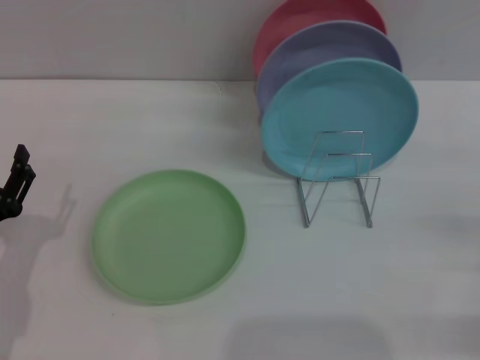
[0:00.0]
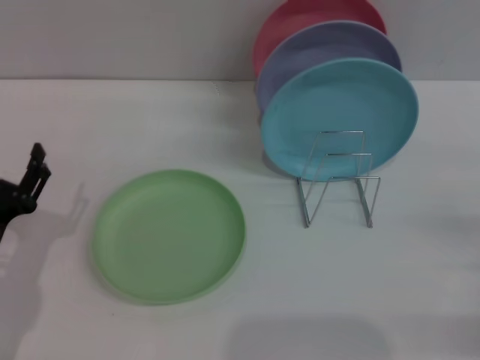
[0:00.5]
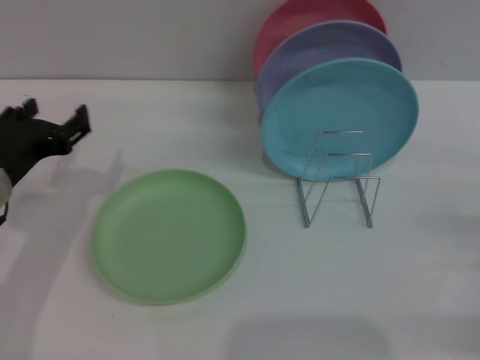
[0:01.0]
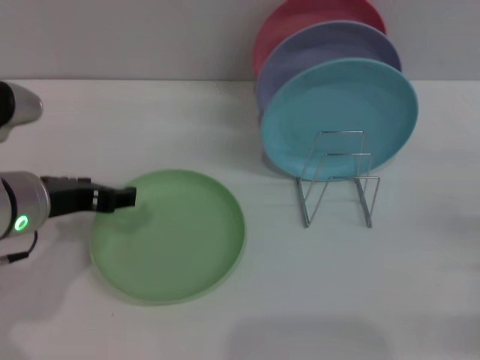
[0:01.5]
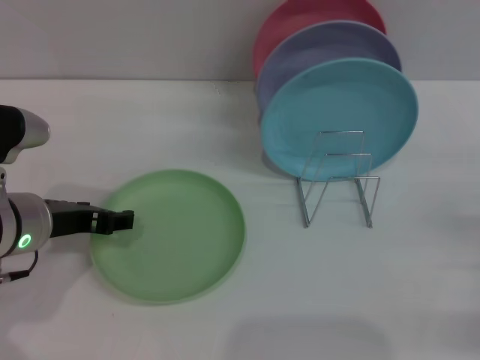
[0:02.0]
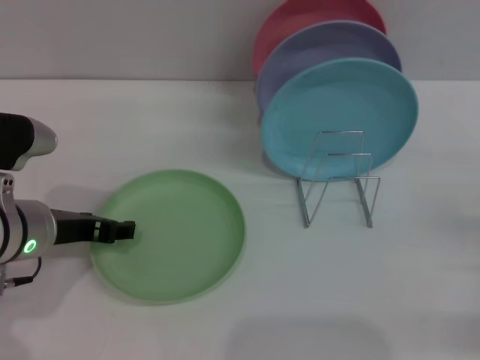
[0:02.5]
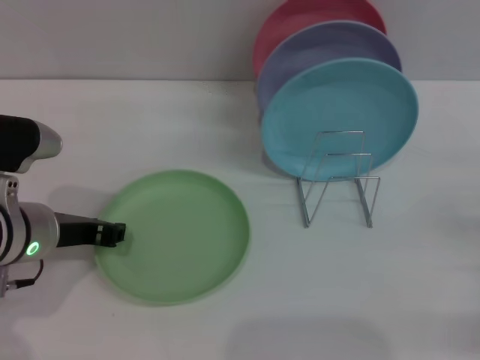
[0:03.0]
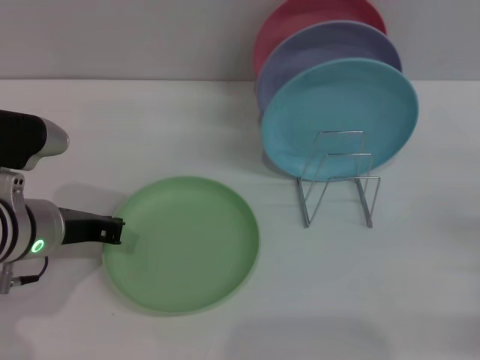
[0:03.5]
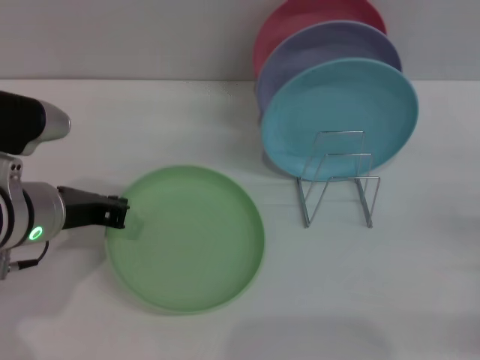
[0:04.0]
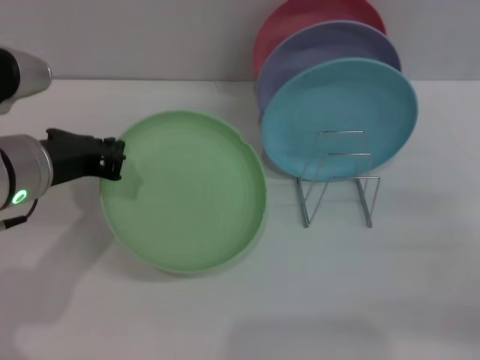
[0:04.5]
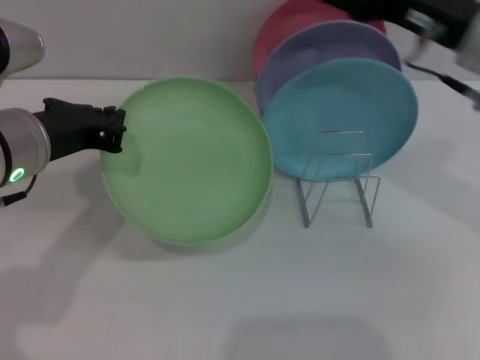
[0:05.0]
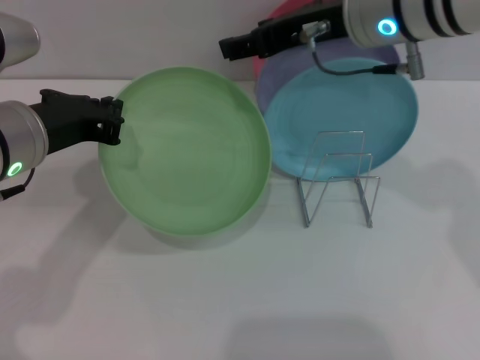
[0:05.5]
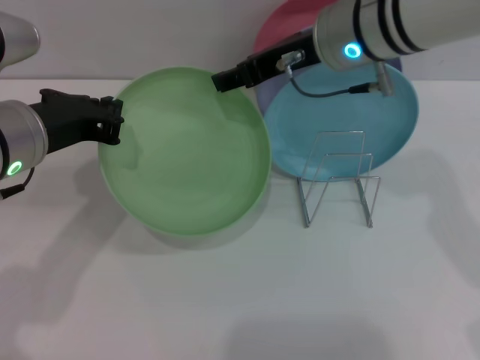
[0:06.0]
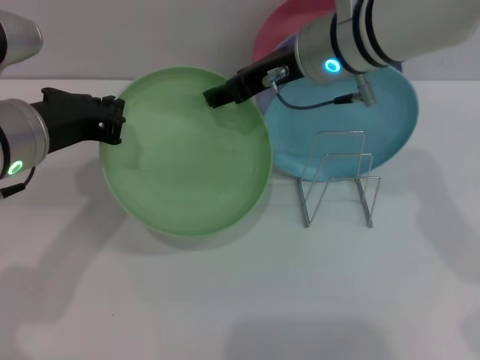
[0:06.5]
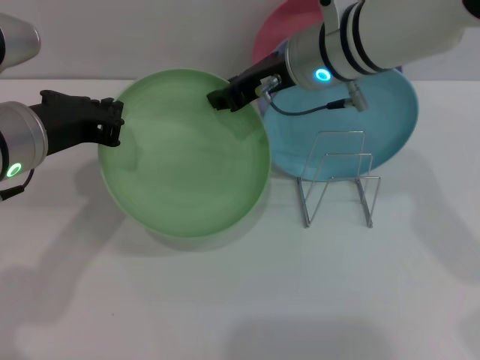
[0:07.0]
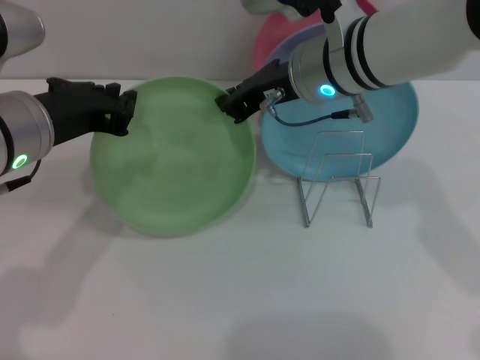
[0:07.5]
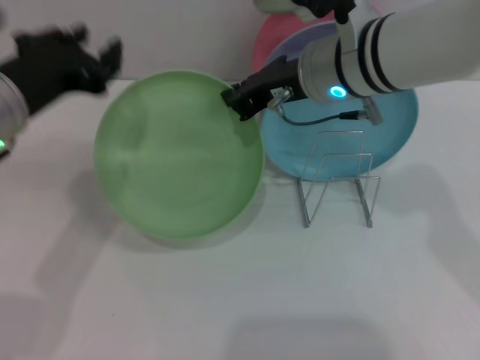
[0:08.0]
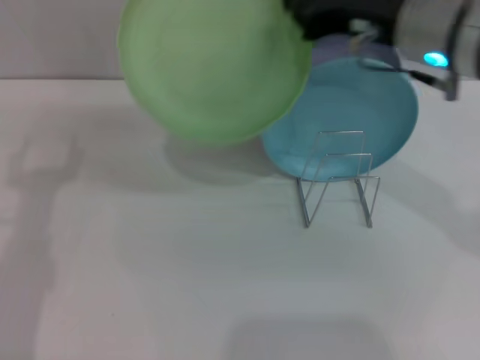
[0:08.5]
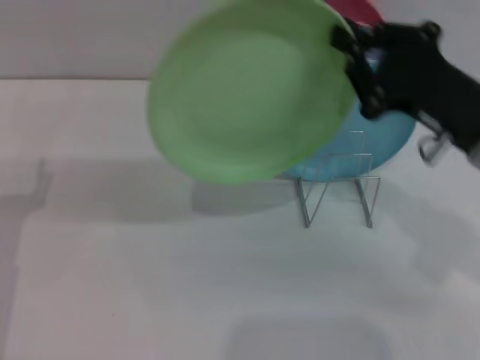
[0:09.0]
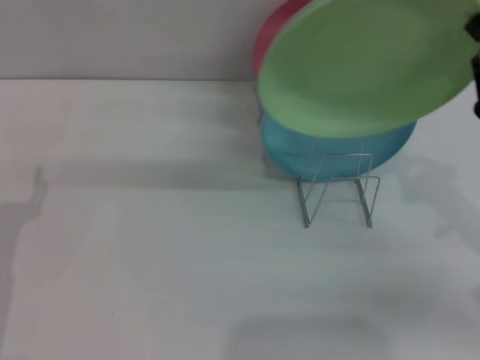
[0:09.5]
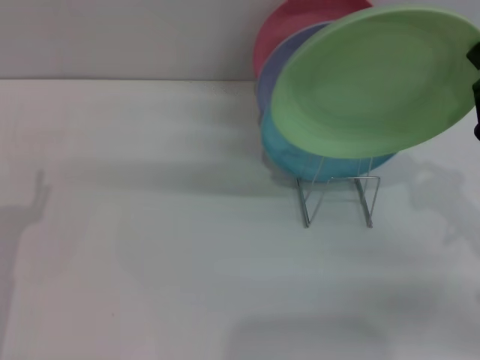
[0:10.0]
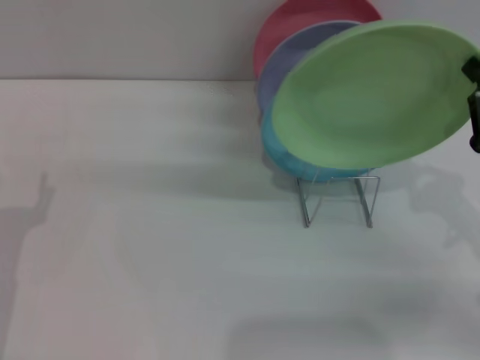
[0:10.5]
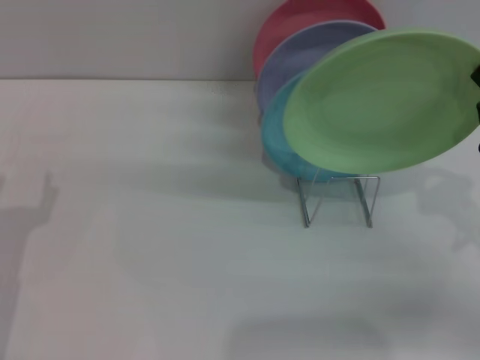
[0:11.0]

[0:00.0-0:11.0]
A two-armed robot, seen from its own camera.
Task of the whole recording: Grip the plate with one hand, pass it to the other, then set it on the shelf.
Step, 0:00.0 to 0:04.5: Pick up the plate with the left gripper.
Step, 0:05.0 to 0:08.0: Pass the plate from the left gripper to the right gripper.
0:00.0 to 0:02.0: The left gripper shifts approximately 15 cm upward, forward and to the right.
0:02.0 to 0:03.5: The left gripper closes up.
0:03.5 to 0:05.5: The left gripper heads upward, covering about 10 cm. The right gripper is displaced to the left, upward and forward by approximately 40 cm.
0:05.5 to 0:07.5: The right gripper heads downward, covering about 5 cm, and closes its fingers.
0:07.5 to 0:09.0: The right gripper heads to the right and backward, covering roughly 15 cm. Meanwhile the left gripper is displaced downward, to the left and backward by approximately 15 cm, and opens its fingers.
0:09.0 to 0:11.0: The right gripper moves to the right and downward, approximately 10 cm.

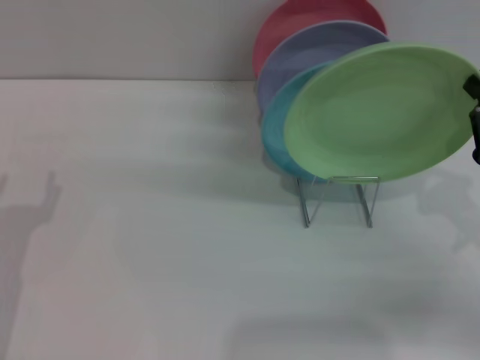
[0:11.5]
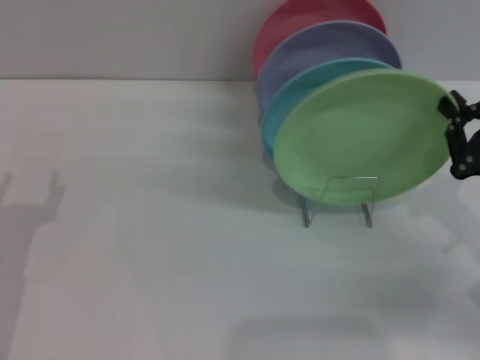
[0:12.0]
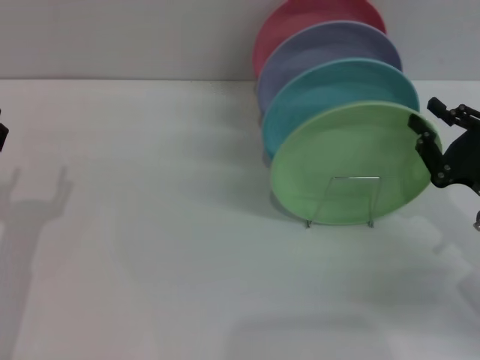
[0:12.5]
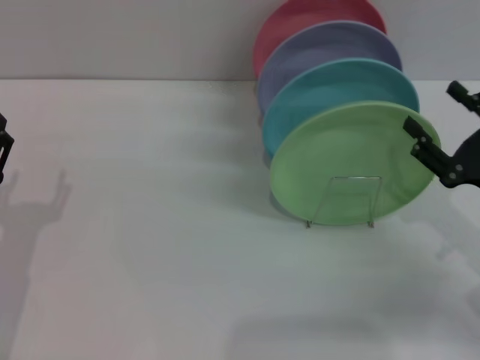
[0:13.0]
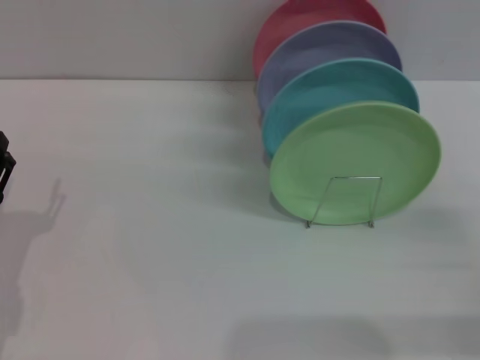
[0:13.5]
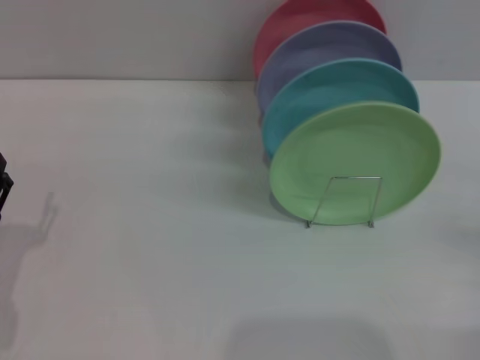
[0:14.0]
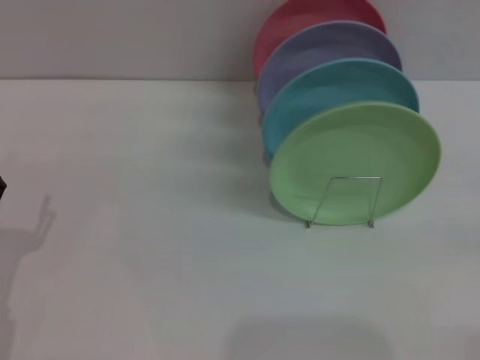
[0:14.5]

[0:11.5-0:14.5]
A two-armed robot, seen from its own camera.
Task of the whole recording: Grip the plate with one hand, pass it to the other, then set it on the shelf.
0:11.5 to 0:13.0: The right gripper opens up.
0:13.0 to 0:14.5: The right gripper goes about 10 cm to the right and backward.

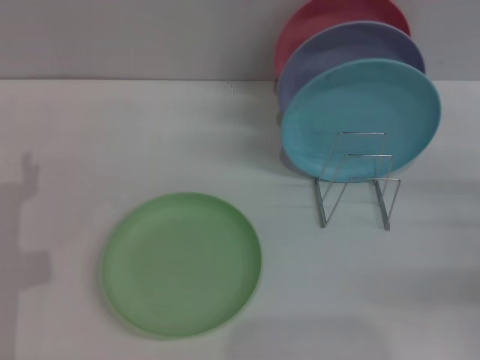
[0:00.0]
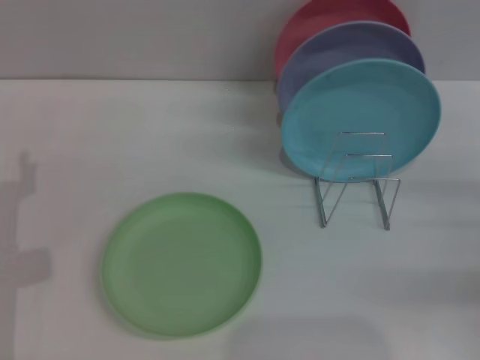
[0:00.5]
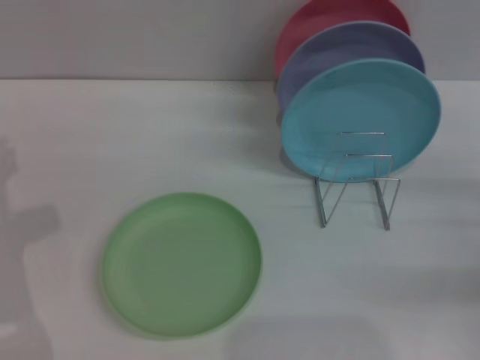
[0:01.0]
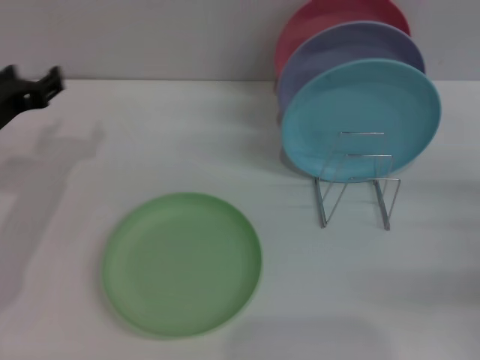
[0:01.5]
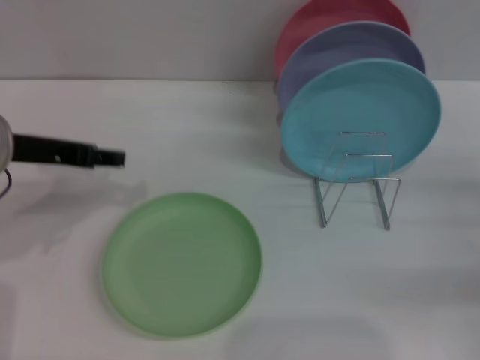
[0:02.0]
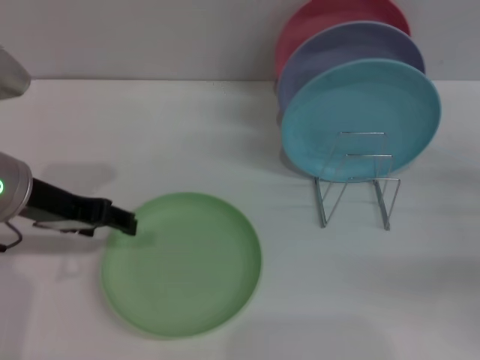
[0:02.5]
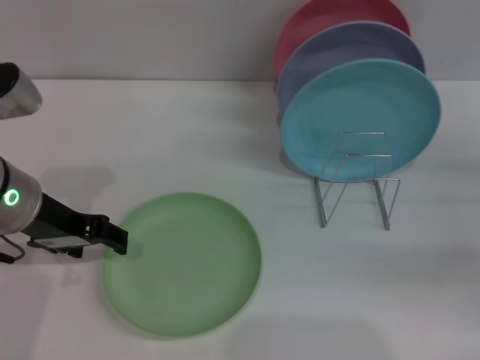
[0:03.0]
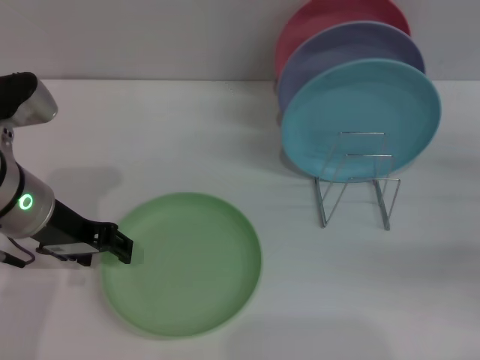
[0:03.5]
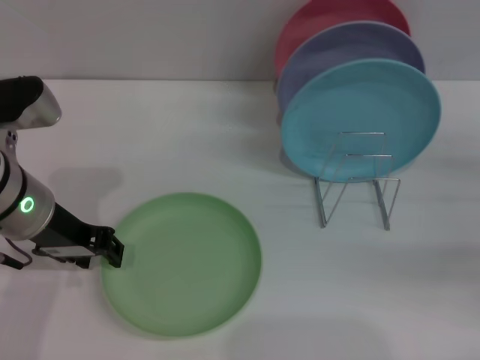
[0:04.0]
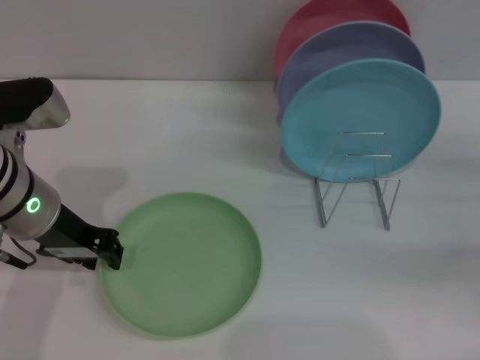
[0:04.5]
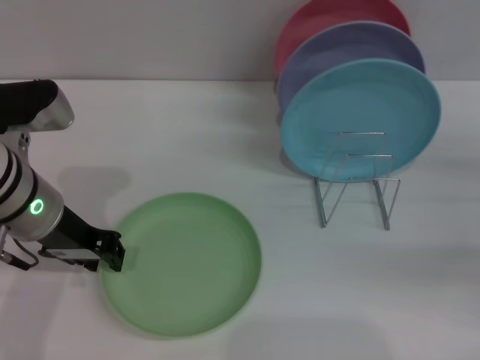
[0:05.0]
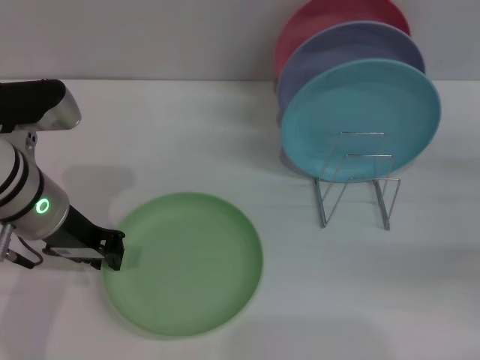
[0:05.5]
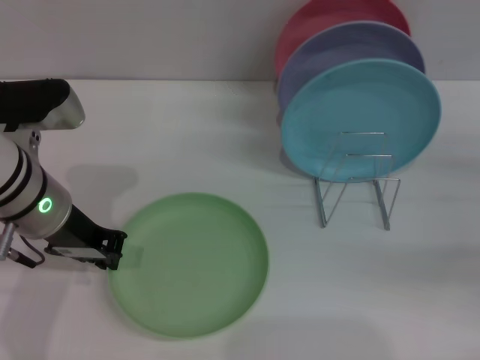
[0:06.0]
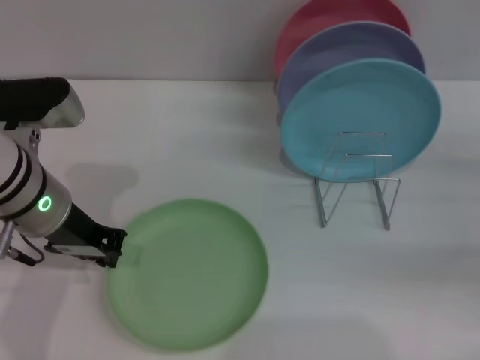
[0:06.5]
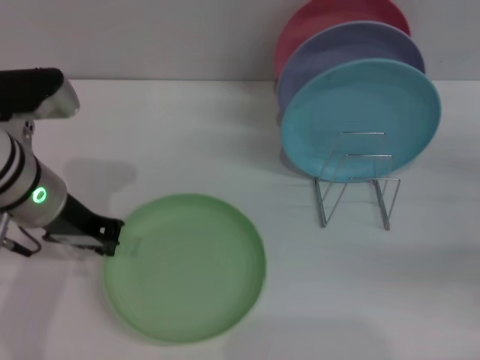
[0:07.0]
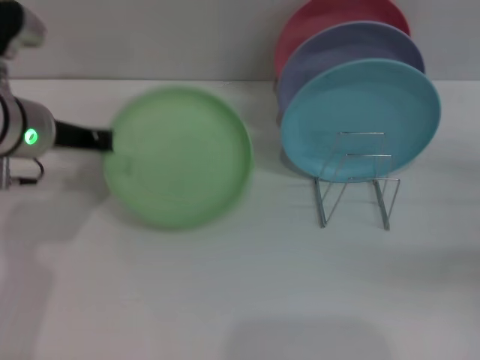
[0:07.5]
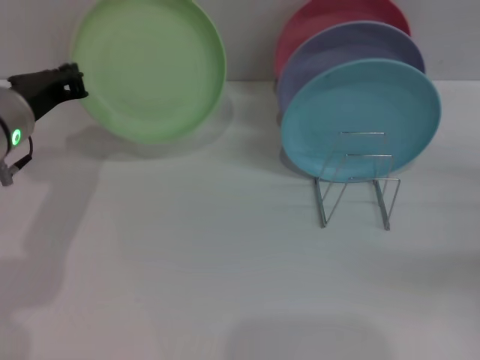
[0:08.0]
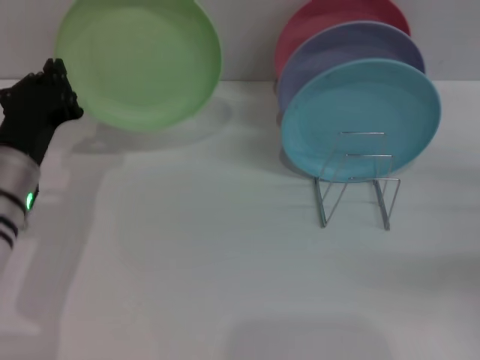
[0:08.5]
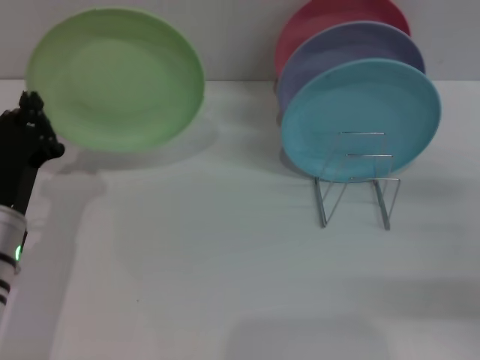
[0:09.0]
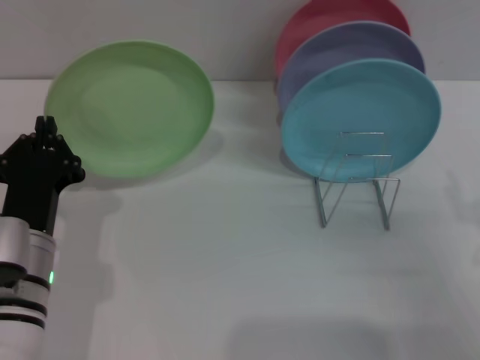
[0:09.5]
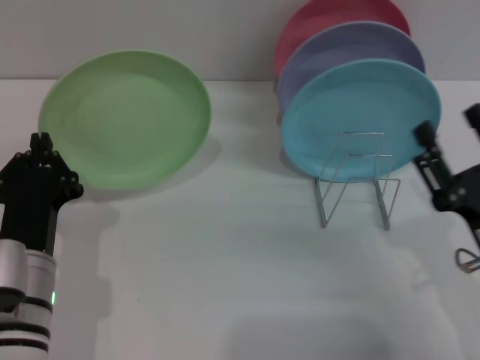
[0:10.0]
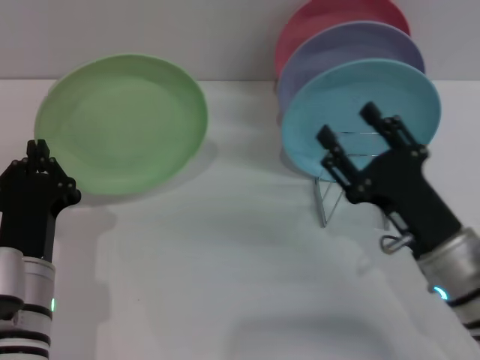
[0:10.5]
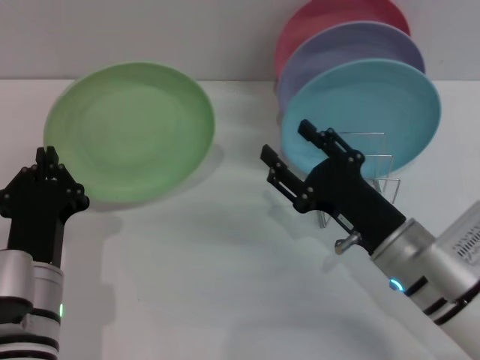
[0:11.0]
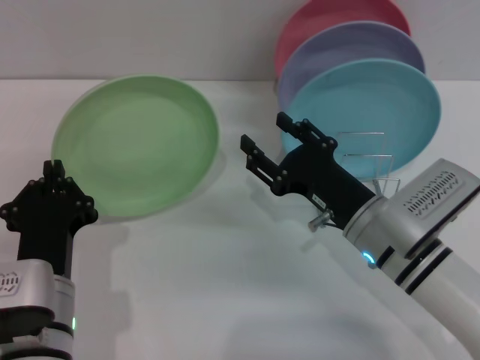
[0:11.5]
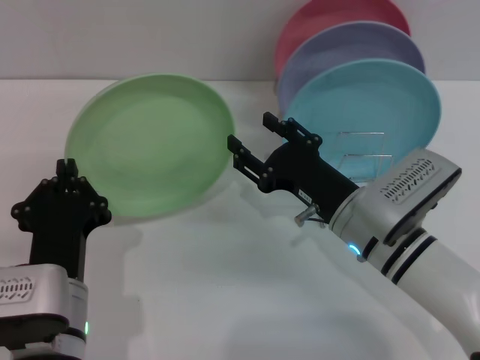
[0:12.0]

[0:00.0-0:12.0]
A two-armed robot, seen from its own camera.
Task of the whole recording: Grip the plate with one hand, pass it to the other, then set it on the shelf.
Step, 0:00.0 to 0:08.0: Pick up the plate with the left gripper.
0:00.0 to 0:02.0: The left gripper shifts some 15 cm upward and forward.
0:04.0 to 0:06.0: The left gripper closes its fingers.
0:06.0 to 0:08.0: The left gripper changes place by some 5 cm.
0:08.0 to 0:10.0: The right gripper moves to the left and backward, roughly 15 cm. Meanwhile the left gripper heads backward and downward, covering some 20 cm.
0:10.0 to 0:12.0: The right gripper moves to the left and forward, some 15 cm.
